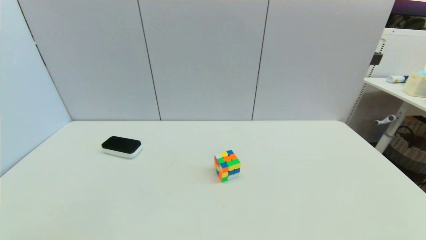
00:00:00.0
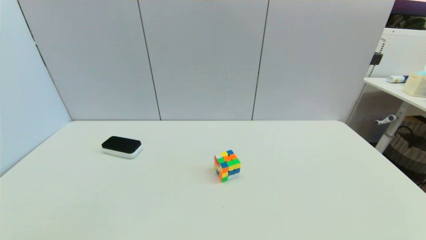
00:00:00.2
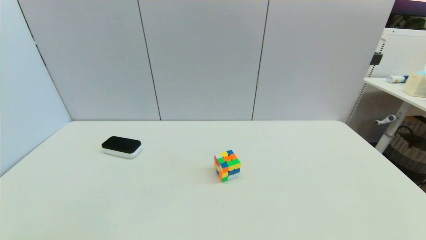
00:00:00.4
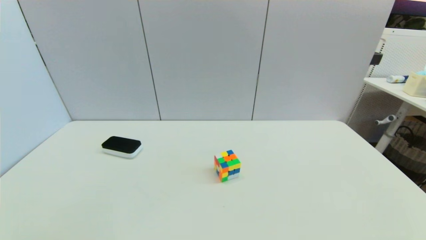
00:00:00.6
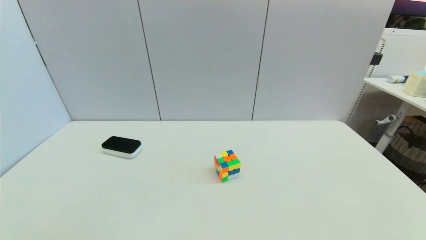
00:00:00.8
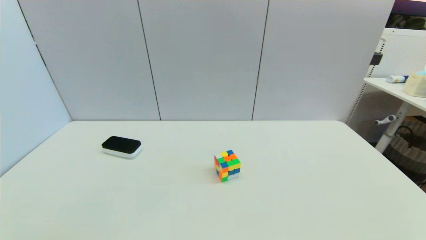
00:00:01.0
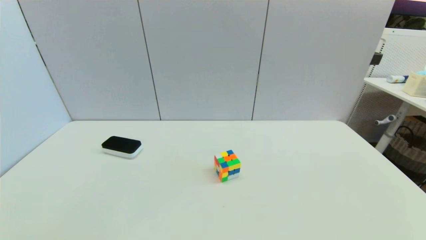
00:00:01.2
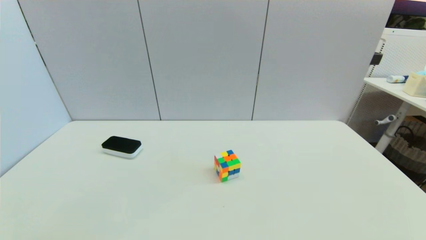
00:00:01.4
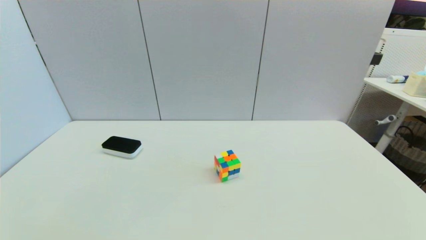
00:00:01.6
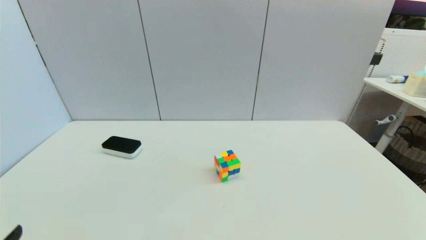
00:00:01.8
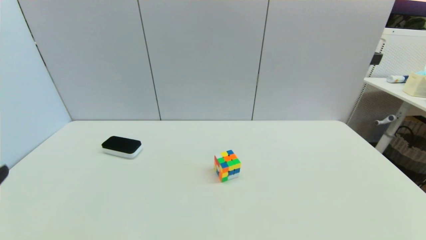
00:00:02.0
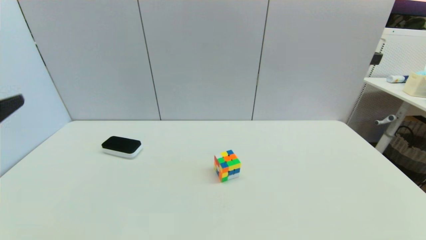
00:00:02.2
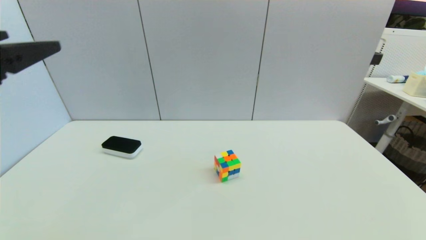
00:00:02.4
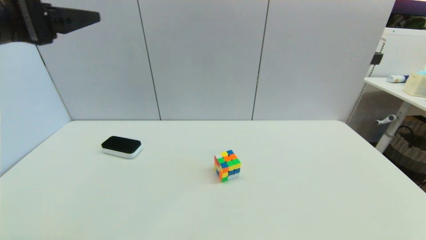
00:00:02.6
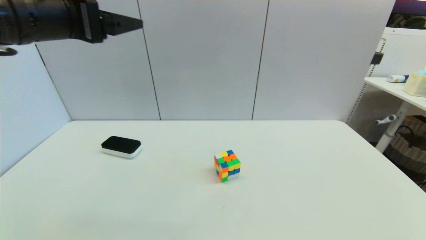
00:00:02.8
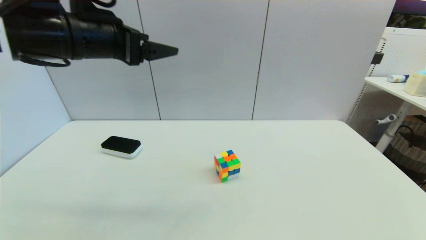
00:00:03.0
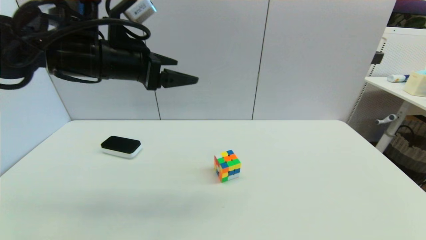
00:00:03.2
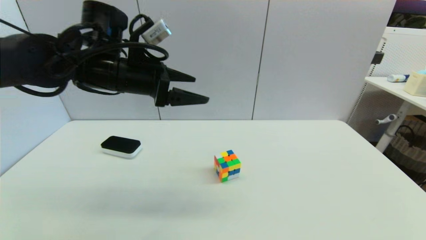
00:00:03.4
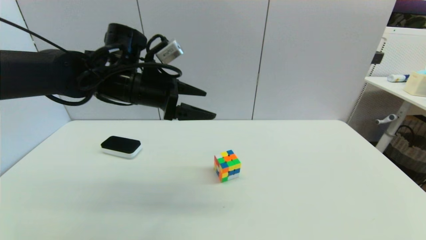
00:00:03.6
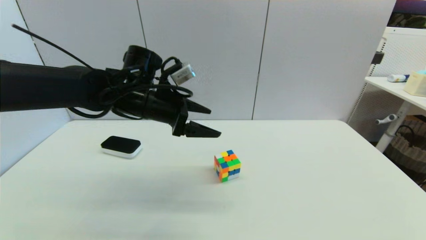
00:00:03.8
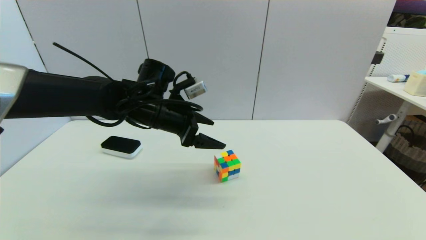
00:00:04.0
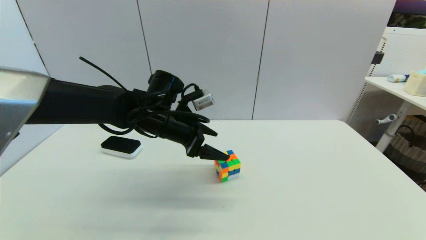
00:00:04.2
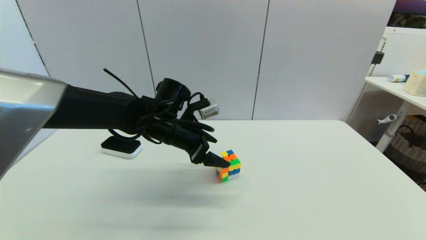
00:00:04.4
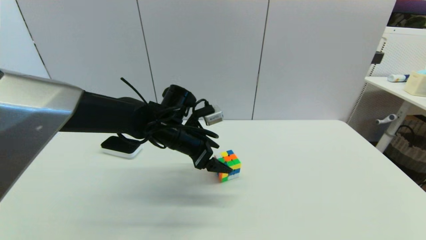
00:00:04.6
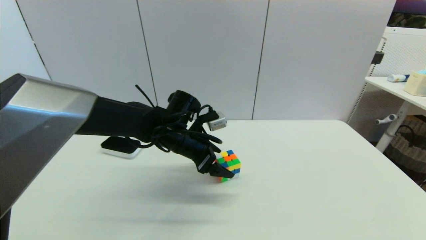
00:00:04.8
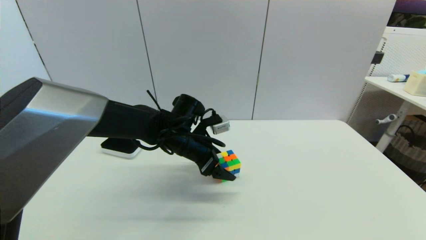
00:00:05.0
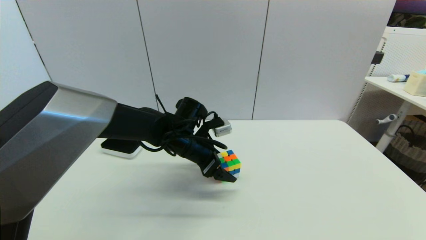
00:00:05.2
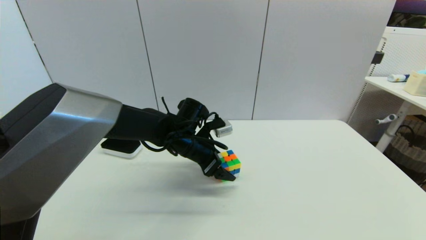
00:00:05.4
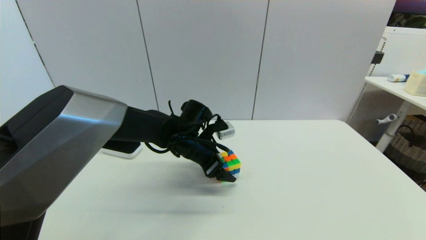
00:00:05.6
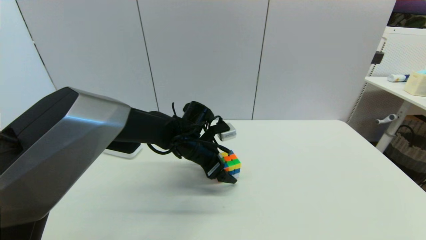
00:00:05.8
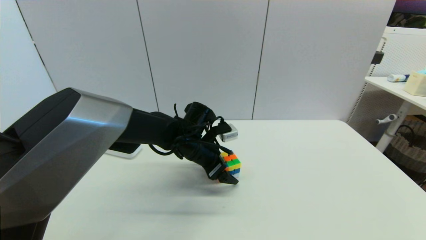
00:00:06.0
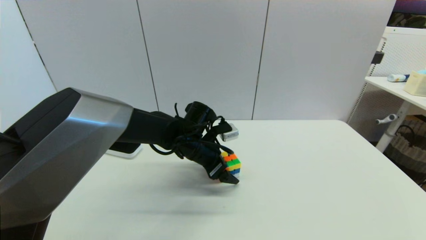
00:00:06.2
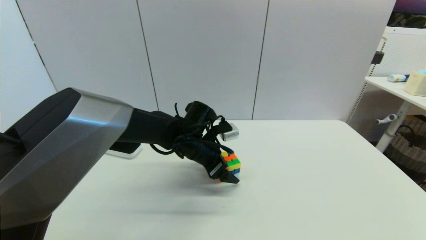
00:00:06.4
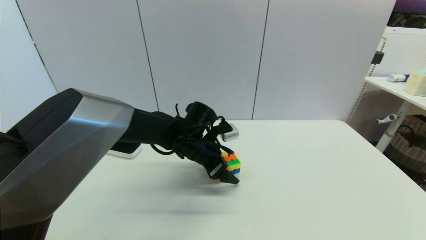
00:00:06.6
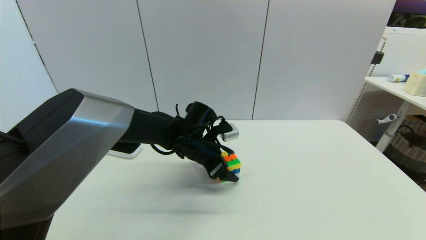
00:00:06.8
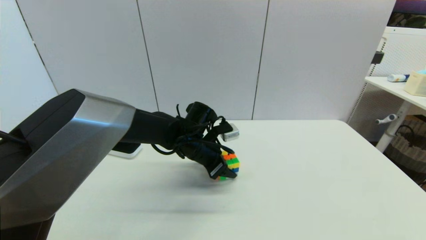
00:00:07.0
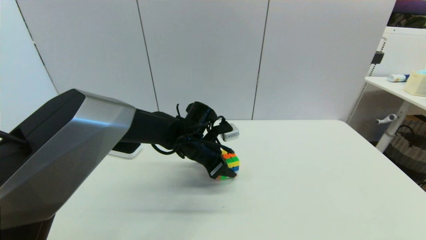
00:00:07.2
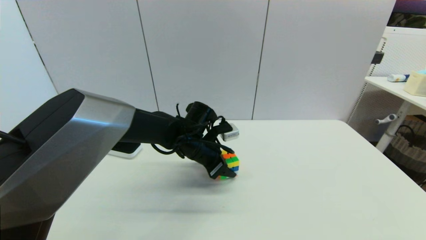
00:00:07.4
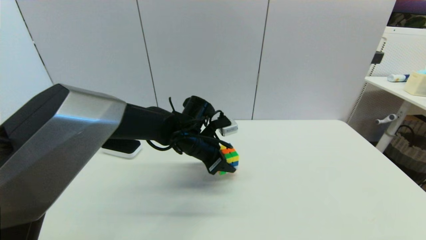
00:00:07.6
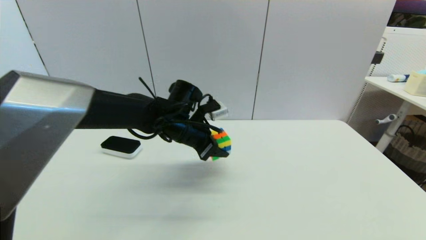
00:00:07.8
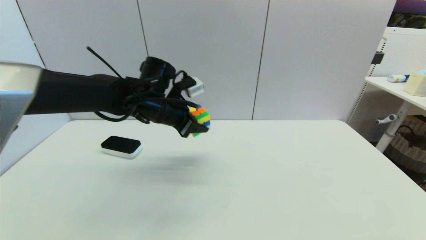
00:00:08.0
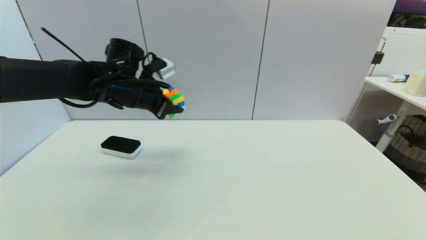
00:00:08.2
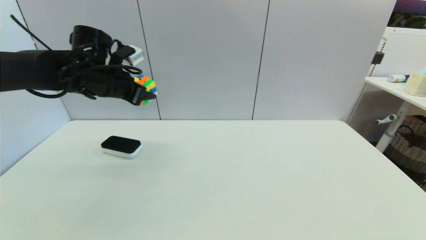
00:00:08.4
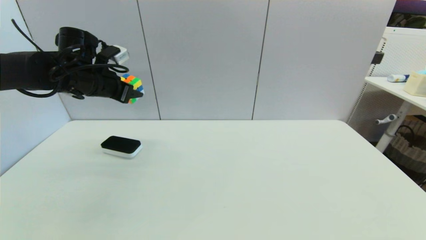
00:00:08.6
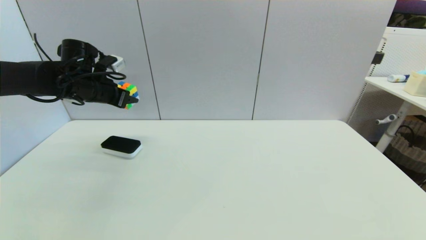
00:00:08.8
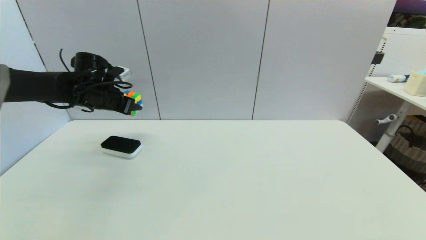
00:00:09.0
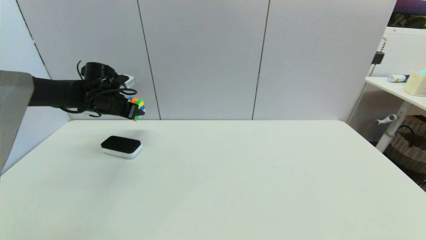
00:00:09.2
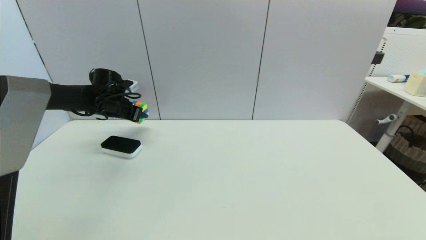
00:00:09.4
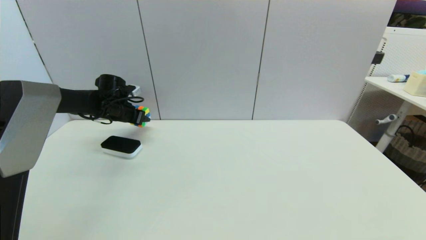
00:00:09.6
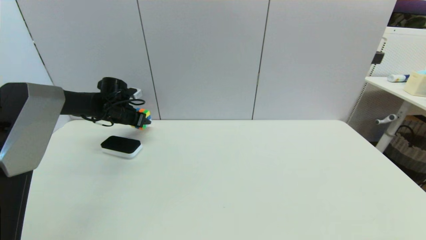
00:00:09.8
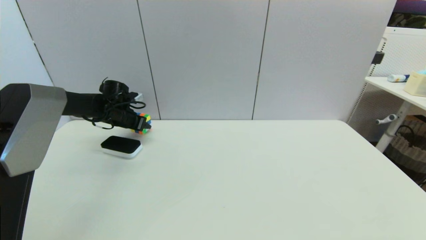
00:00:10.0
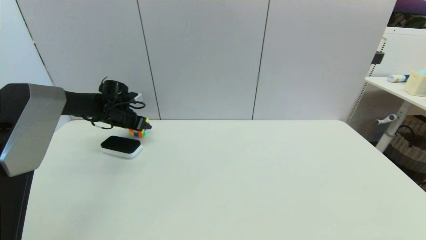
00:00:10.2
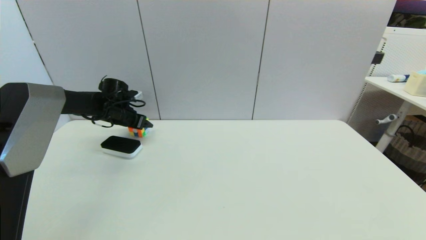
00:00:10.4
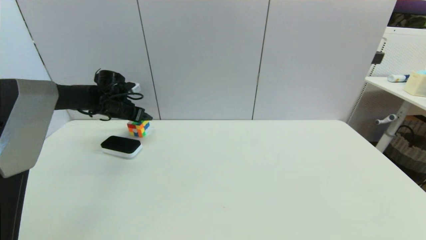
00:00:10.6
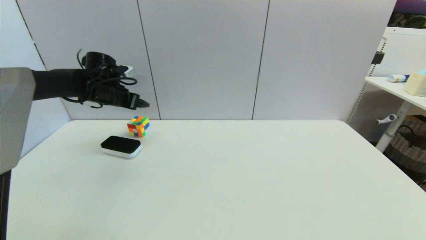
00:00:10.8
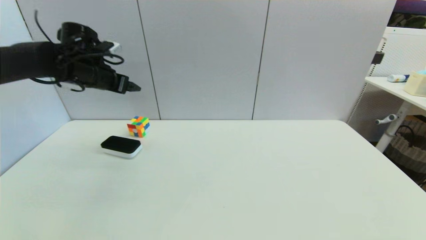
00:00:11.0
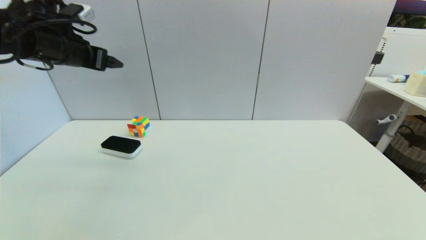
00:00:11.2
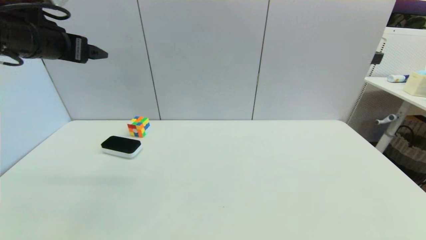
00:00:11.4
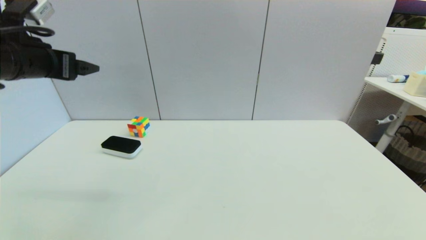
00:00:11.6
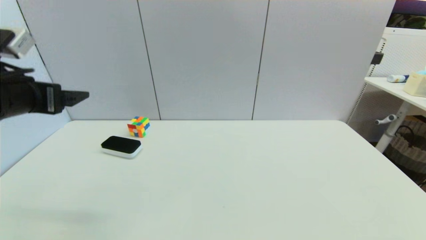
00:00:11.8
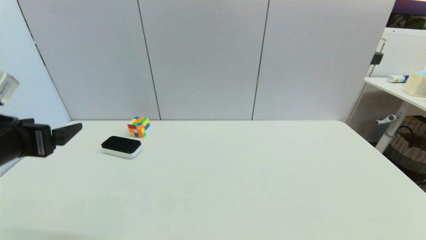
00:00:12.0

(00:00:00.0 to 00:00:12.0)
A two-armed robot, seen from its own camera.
Step, 00:00:01.8 - 00:00:07.0: Grasp the magic cube with left gripper.
Step, 00:00:07.2 - 00:00:10.6: Place the magic cube on the table with left gripper.
00:00:01.6 - 00:00:03.0: The left gripper shifts some 40 cm forward and upward.
00:00:03.0 - 00:00:04.4: The left gripper heads downward and to the right, covering some 20 cm.
00:00:04.4 - 00:00:06.0: The left gripper is displaced downward by approximately 5 cm.
00:00:06.0 - 00:00:07.6: The left gripper closes.
00:00:07.6 - 00:00:09.0: The left gripper goes some 25 cm to the left.
00:00:09.0 - 00:00:10.4: The left gripper is displaced downward by approximately 5 cm, and opens its fingers.
00:00:10.4 - 00:00:12.0: The left gripper heads backward, covering roughly 30 cm, and opens up.

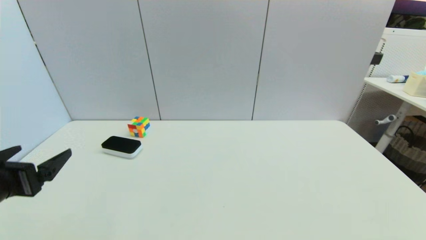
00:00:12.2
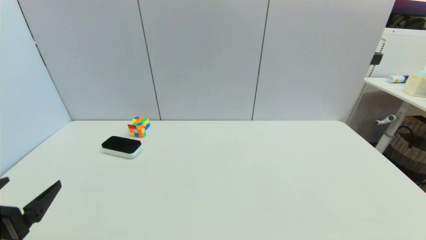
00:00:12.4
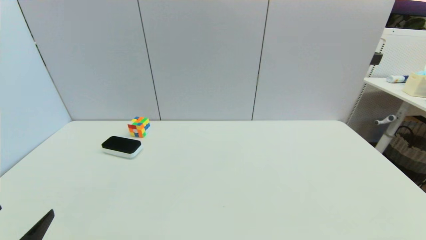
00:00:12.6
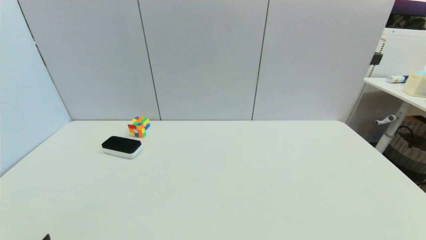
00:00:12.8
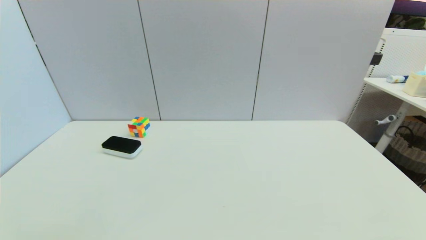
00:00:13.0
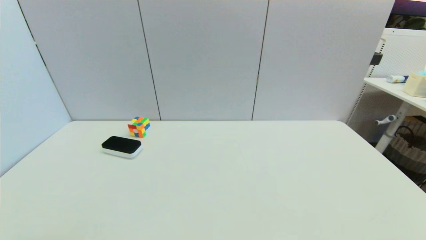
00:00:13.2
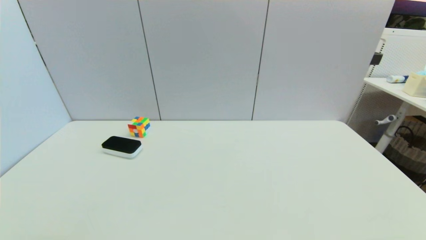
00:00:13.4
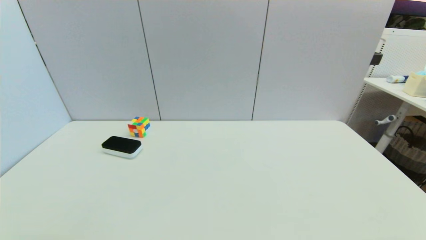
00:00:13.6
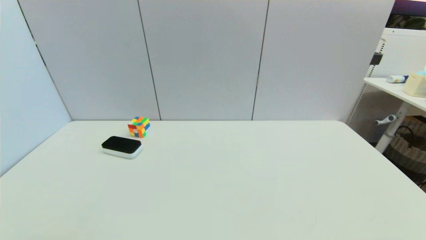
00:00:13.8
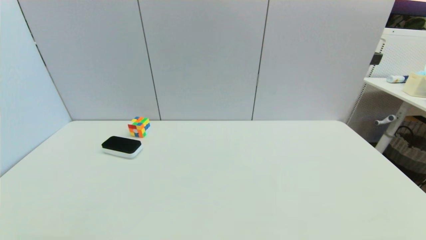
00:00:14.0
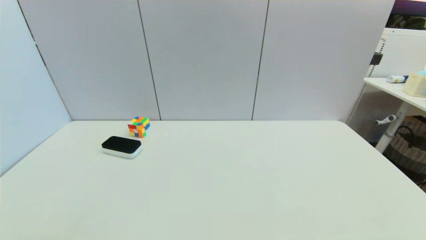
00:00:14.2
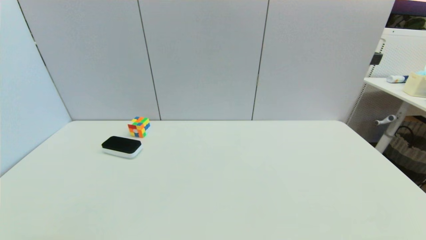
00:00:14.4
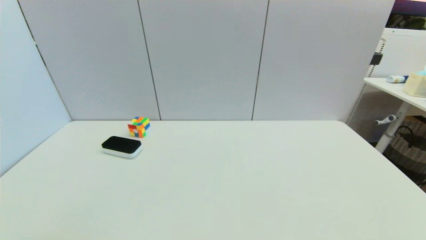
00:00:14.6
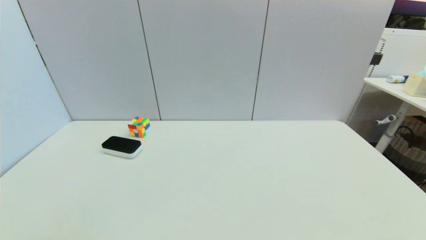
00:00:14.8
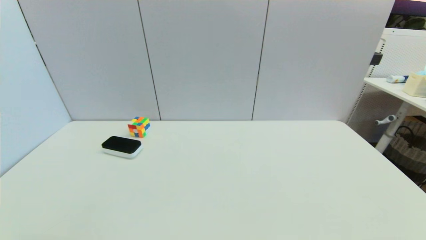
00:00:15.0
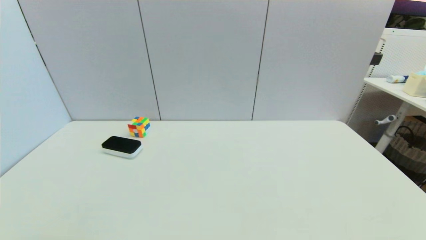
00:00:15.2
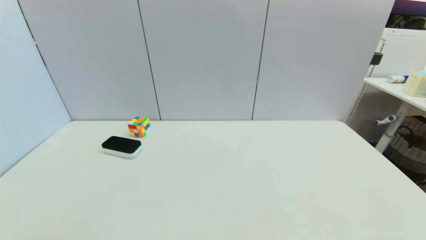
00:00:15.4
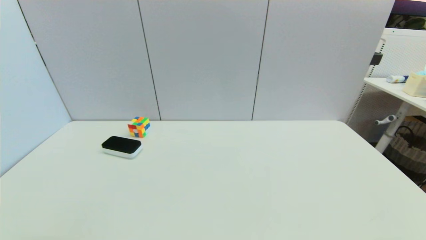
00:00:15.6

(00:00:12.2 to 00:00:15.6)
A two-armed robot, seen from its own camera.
00:00:12.2 - 00:00:13.8: The left gripper is displaced backward and downward by about 20 cm.
00:00:13.8 - 00:00:15.6: The two grippers keep their place.
